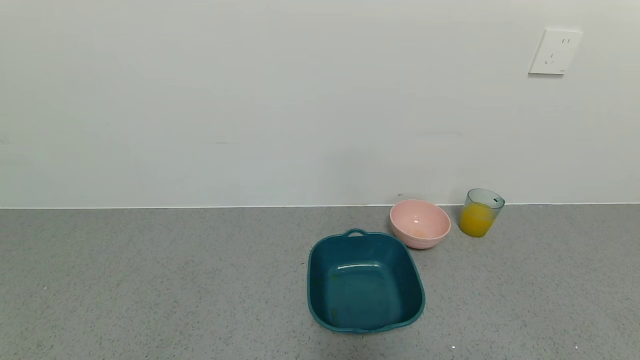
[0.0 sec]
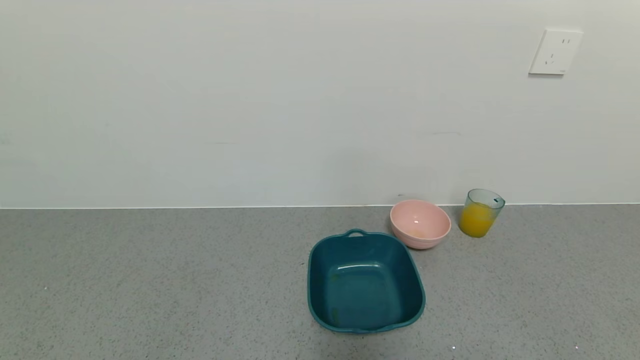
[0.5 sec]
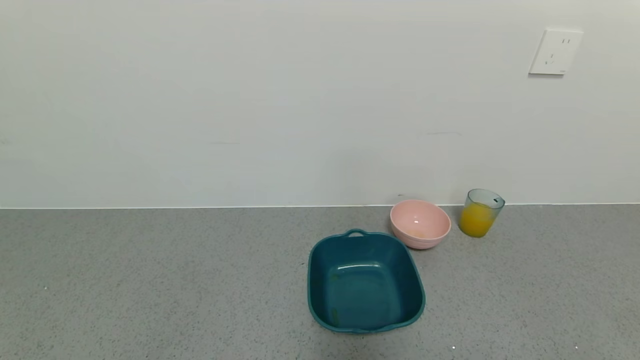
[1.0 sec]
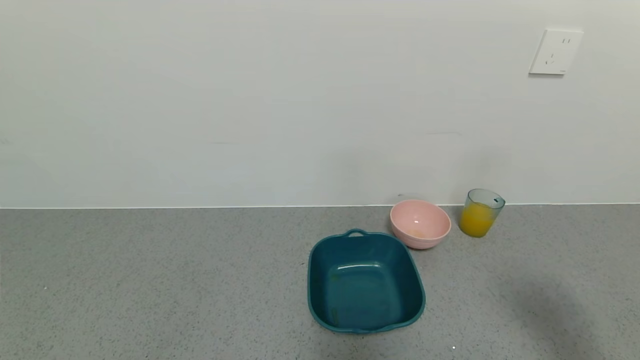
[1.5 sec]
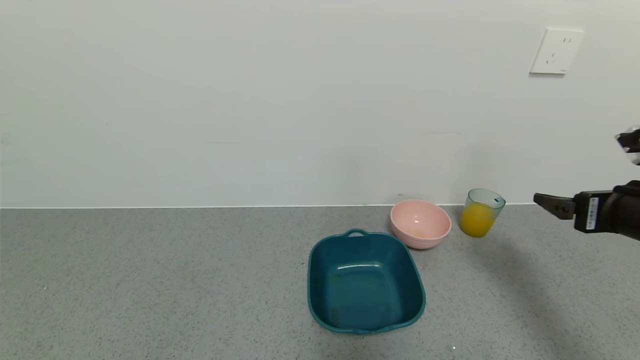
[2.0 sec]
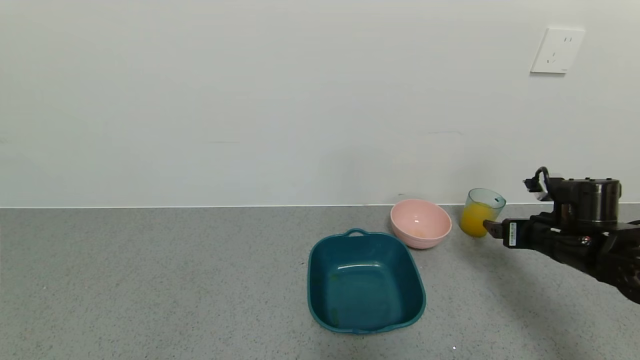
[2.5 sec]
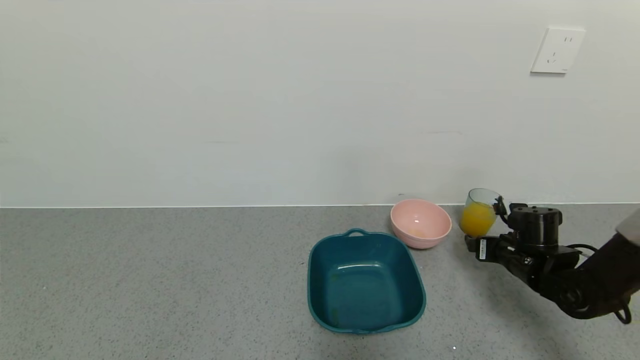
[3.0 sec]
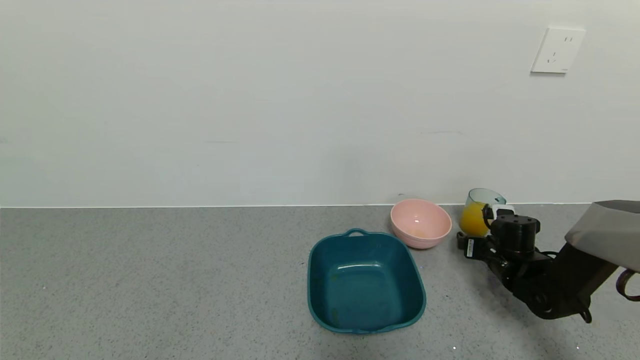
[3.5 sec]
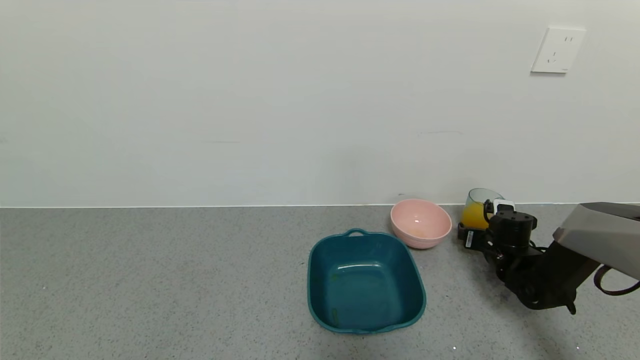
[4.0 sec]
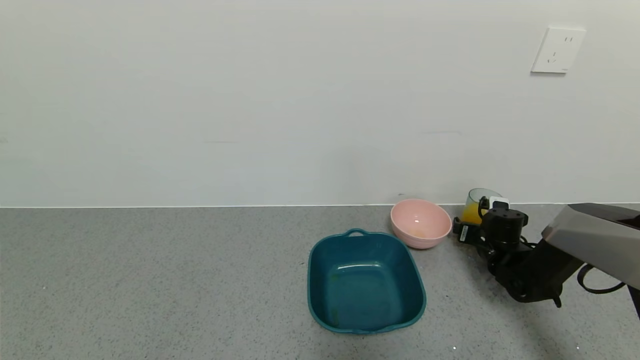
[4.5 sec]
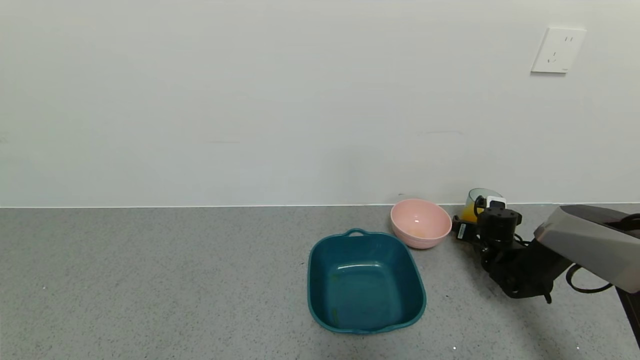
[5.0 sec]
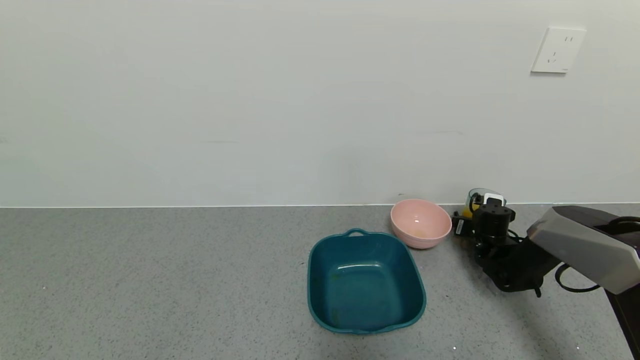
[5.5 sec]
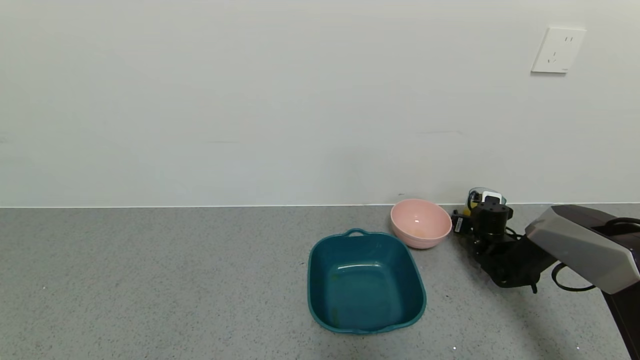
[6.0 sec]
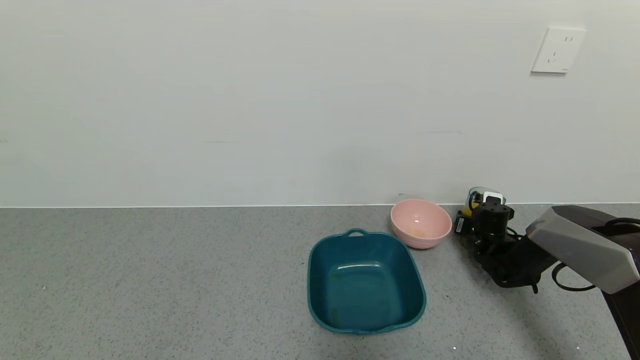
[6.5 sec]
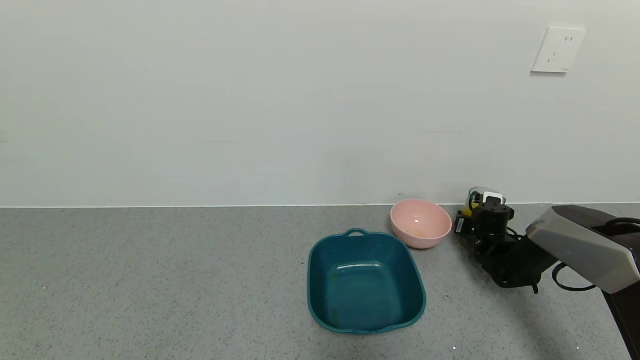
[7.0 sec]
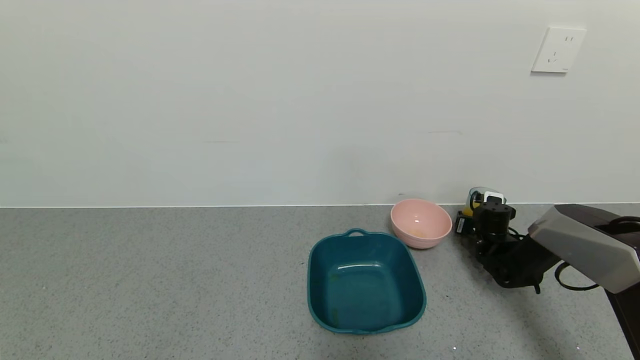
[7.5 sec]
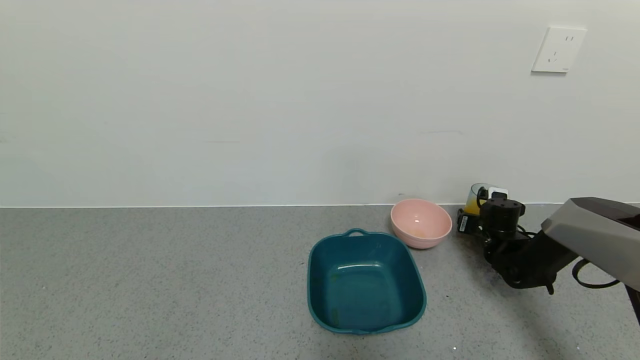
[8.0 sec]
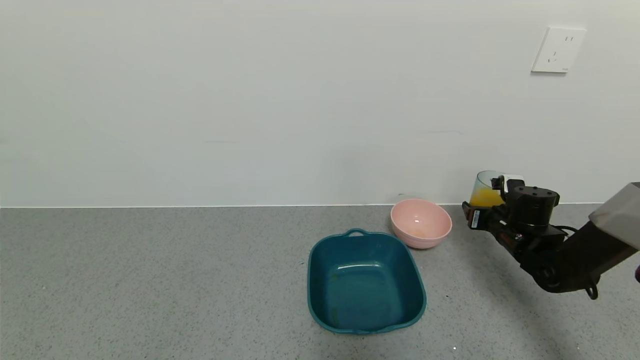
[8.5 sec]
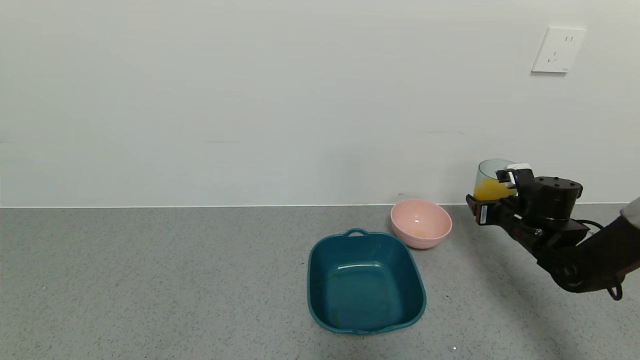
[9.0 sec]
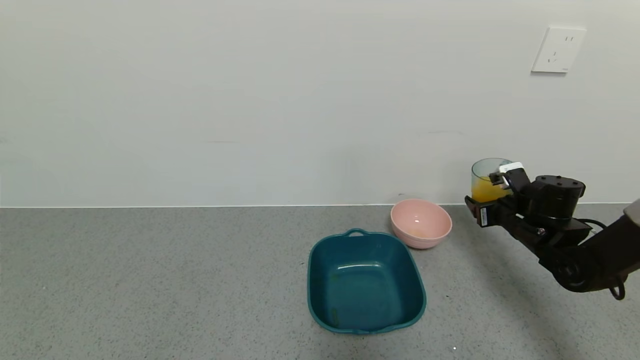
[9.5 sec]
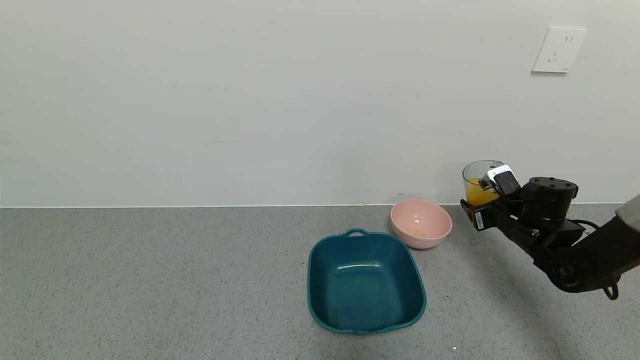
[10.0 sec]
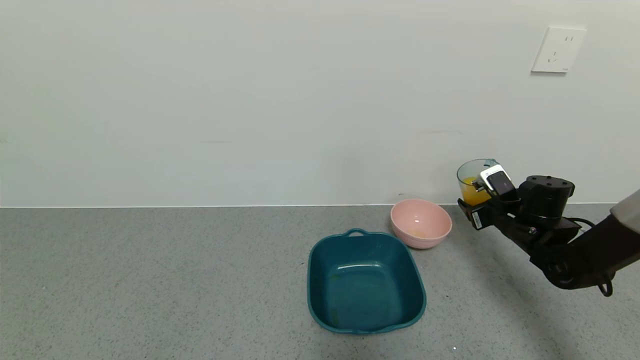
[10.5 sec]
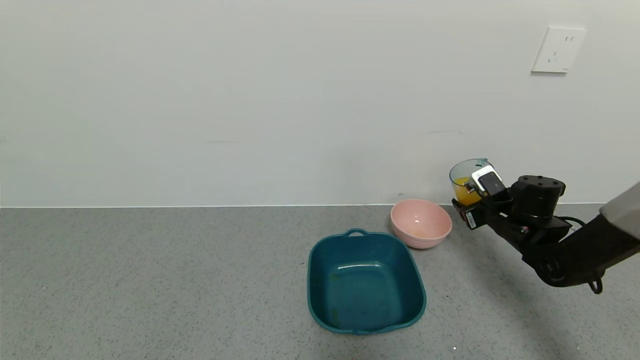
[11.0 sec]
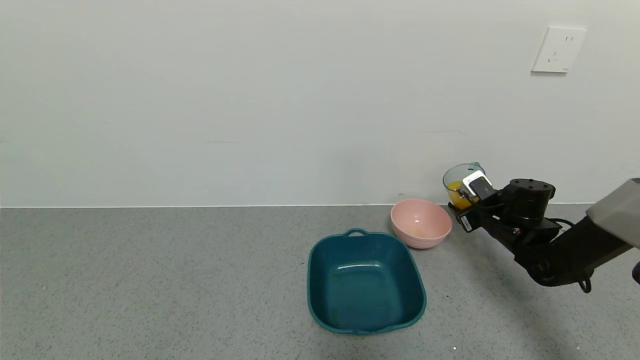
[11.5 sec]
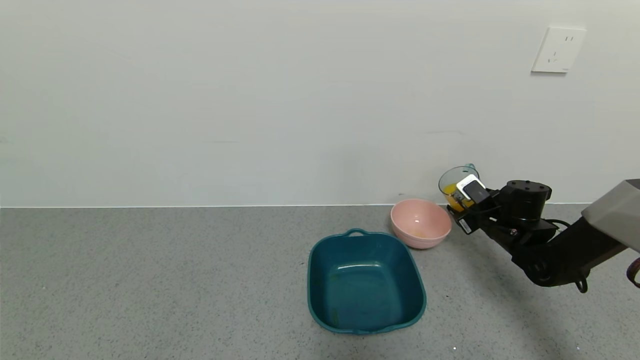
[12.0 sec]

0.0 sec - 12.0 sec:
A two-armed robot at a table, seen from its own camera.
Task of the whole recording: use a gripper to pick up the cup and pour the liquid into a bowl or tray.
Step, 0.0 sec - 6.5 sec: Pick up blue cup filled with orange juice with right gripper.
0.0 sec - 2.0 sec: The right gripper heads forward and upward, covering about 30 cm.
2.0 sec - 4.0 sec: The right gripper travels downward and forward by roughly 25 cm.
4.0 sec - 6.0 sec: The right gripper is displaced forward by approximately 5 cm.
6.0 sec - 8.0 sec: The right gripper closes up.
8.0 sec - 10.0 sec: The right gripper is displaced upward and backward by about 10 cm.
10.0 sec - 12.0 sec: There are only small adjustments of the grippers.

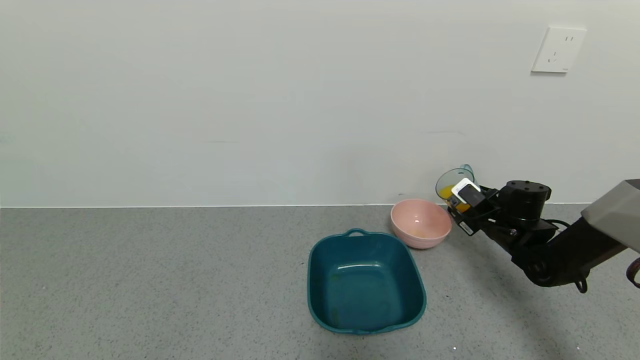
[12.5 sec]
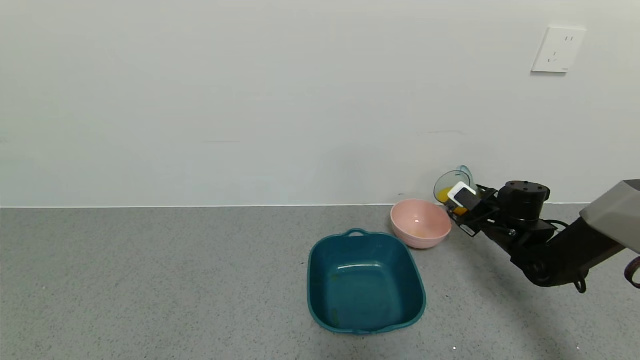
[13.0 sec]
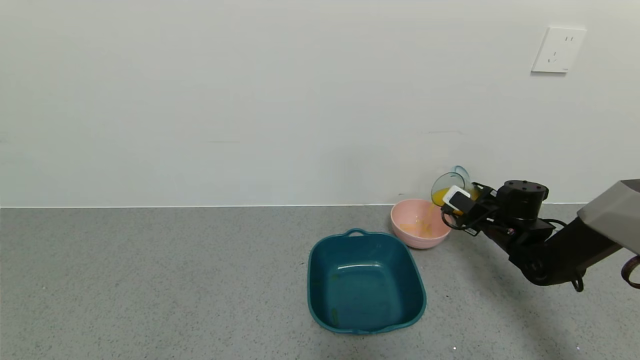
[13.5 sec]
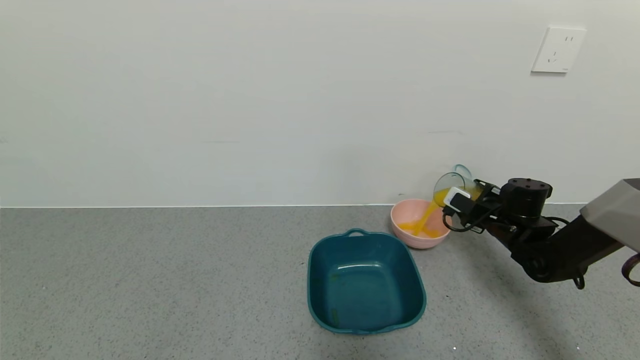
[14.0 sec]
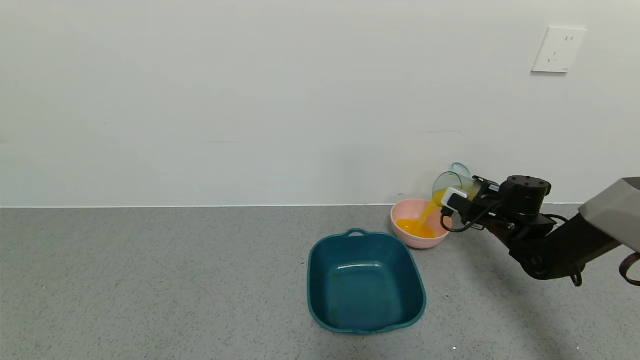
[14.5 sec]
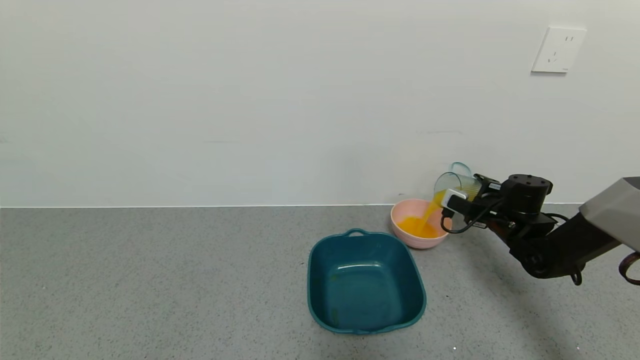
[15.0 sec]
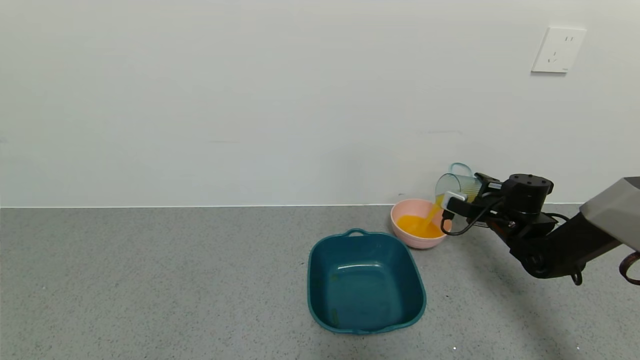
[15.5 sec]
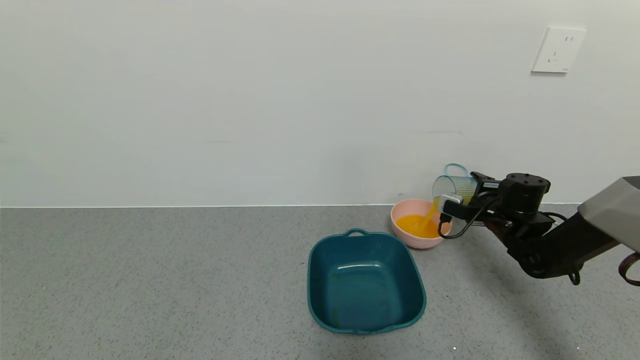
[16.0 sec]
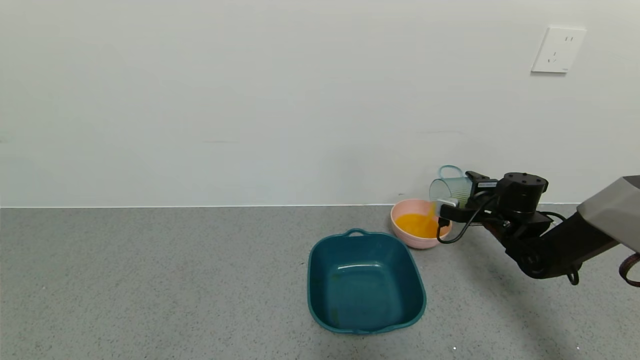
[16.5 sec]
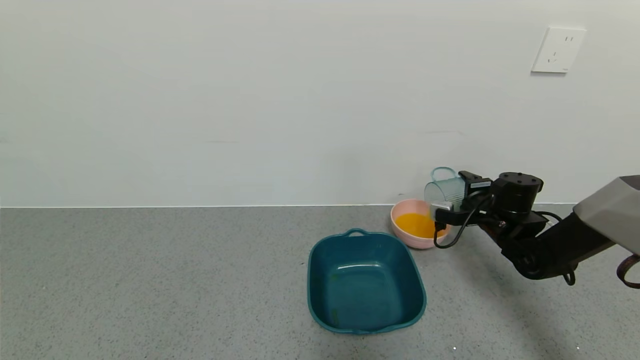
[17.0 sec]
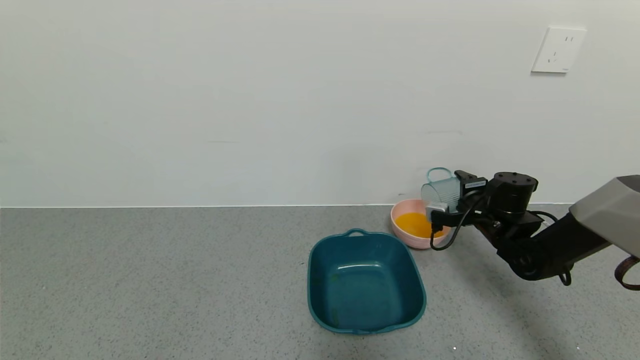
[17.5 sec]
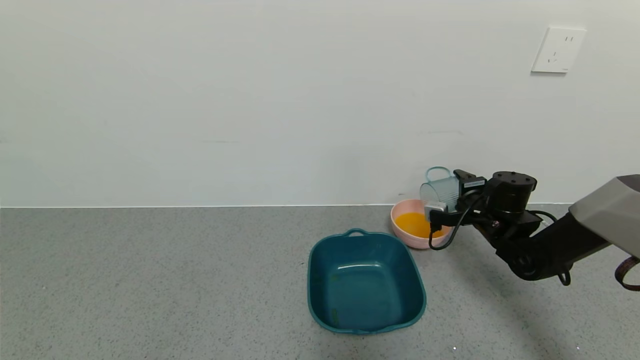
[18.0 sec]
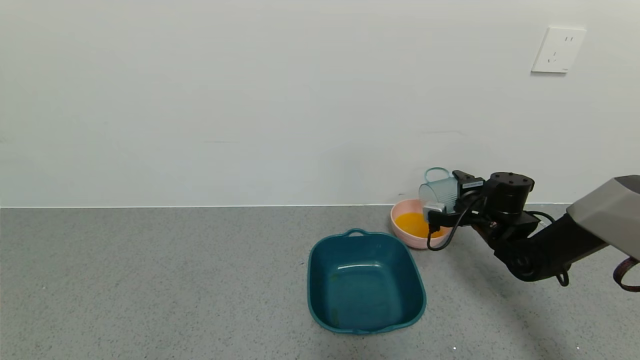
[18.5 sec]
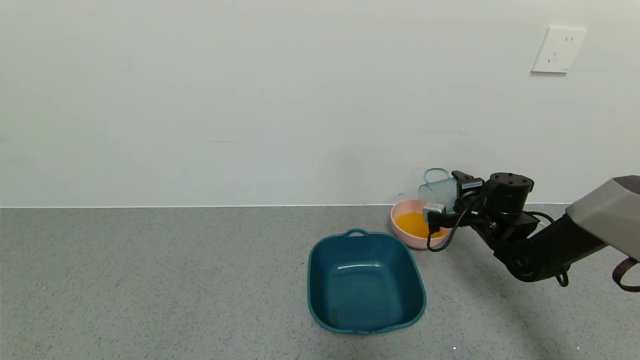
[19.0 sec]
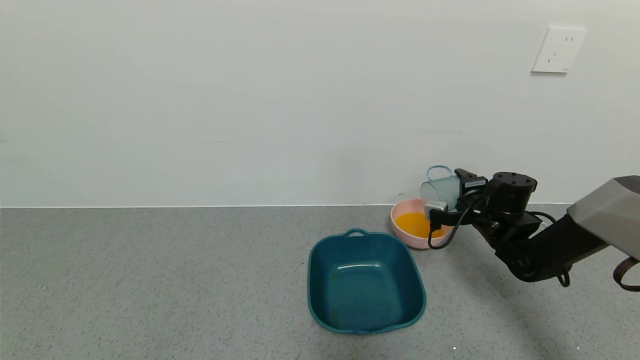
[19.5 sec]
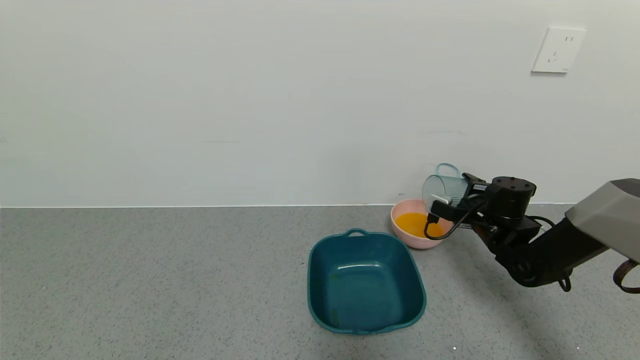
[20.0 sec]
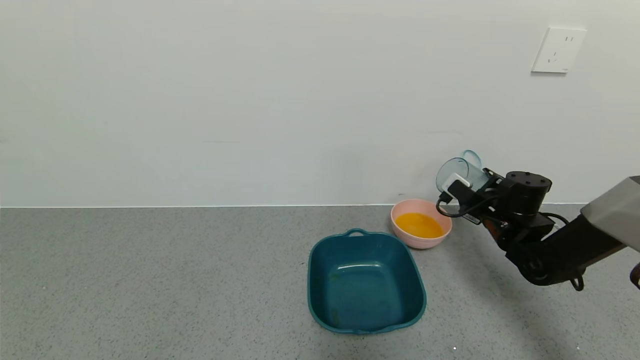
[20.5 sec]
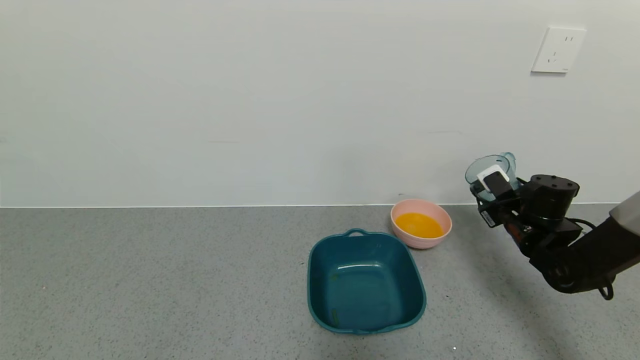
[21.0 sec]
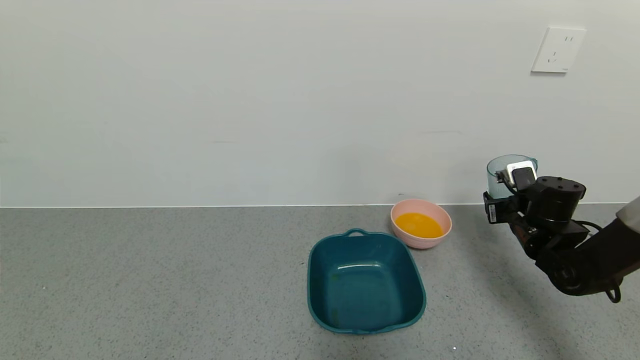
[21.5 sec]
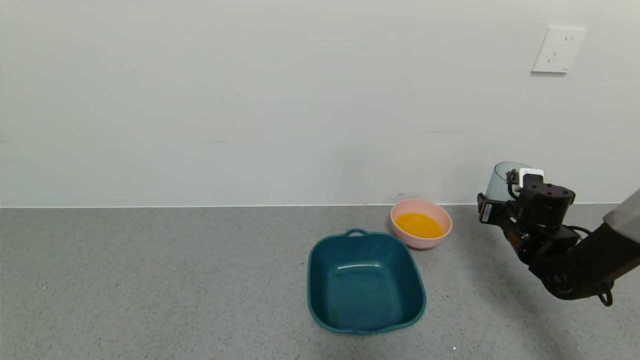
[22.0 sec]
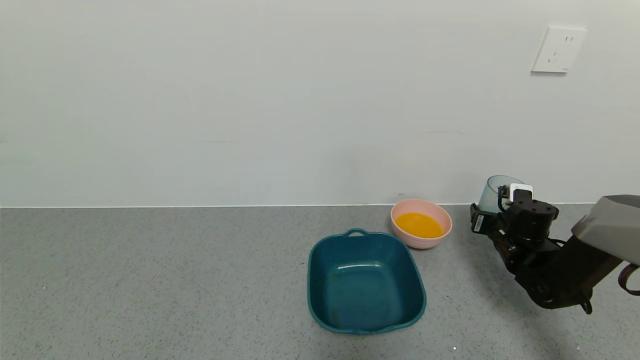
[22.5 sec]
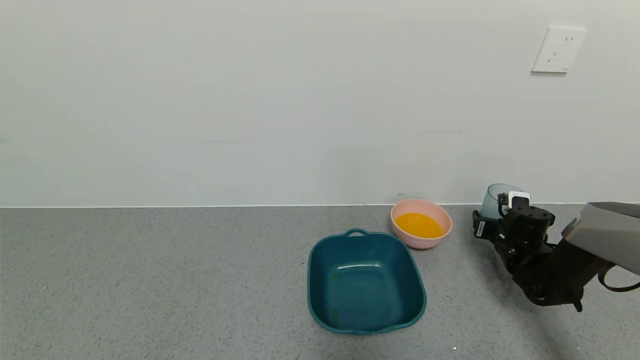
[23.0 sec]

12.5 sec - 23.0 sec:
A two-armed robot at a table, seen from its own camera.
Task of the whole recording: use a gripper to pick up the cup and pour the liquid into a bowl or tray.
Step, 12.5 sec - 17.5 sec: Pour the orange juice into the pink bowl with right gripper.
16.5 sec - 19.0 sec: The grippers make only small movements.
19.0 sec - 21.0 sec: The right gripper ends up some 5 cm from where it was.
21.0 sec - 23.0 sec: The right gripper shifts some 10 cm downward.
